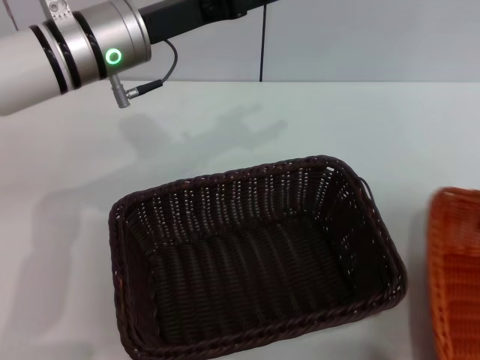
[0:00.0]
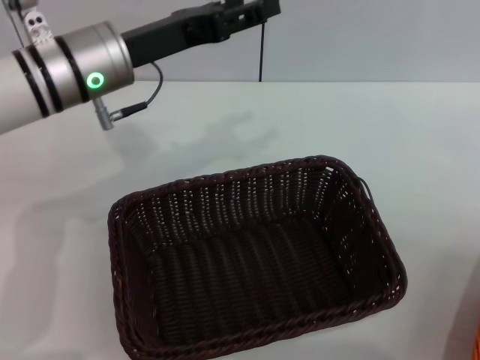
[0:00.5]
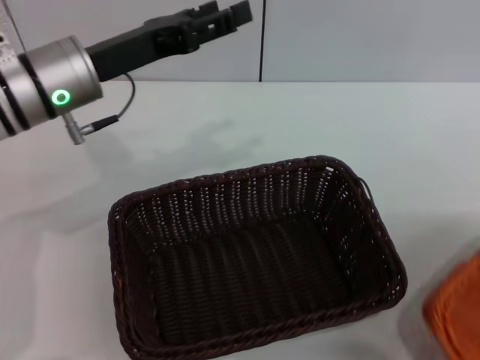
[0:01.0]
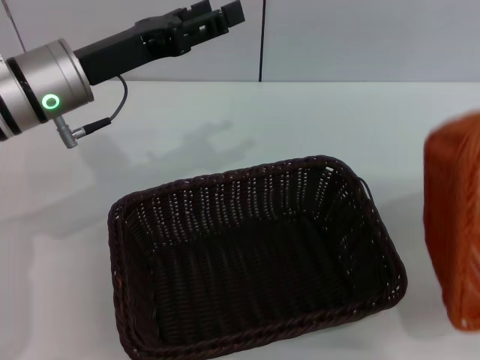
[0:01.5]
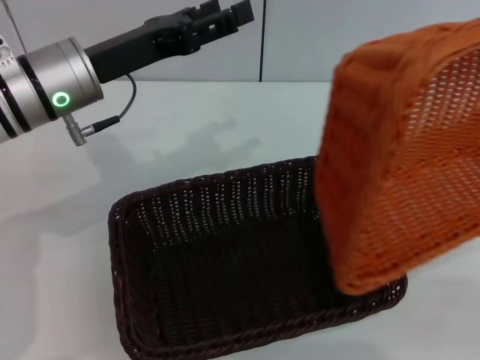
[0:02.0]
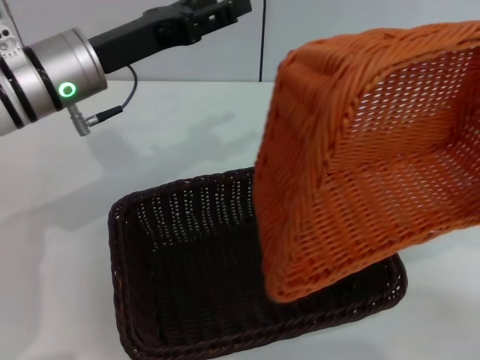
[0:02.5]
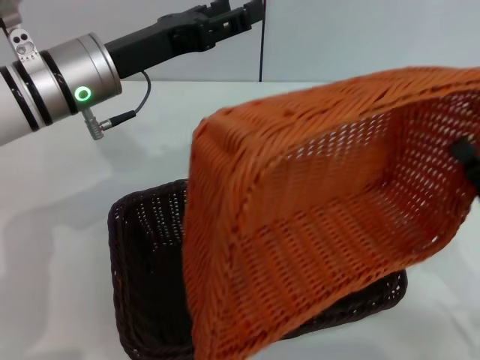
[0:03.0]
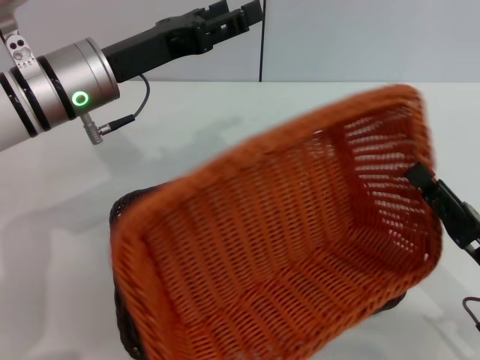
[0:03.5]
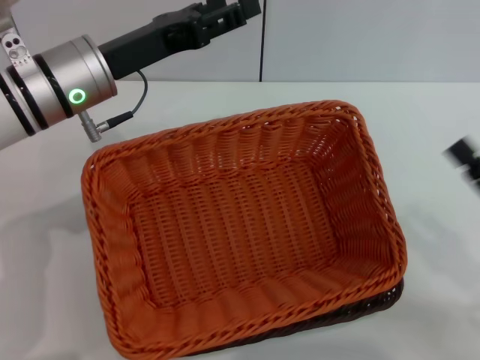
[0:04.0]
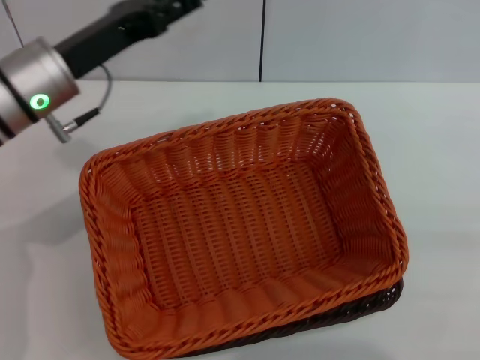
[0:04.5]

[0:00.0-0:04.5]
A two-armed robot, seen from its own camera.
Step, 0:00.5 to 0:03.5: Place the light basket on the dark basket with the right gripper.
0:00.0 to 0:02.0: The left gripper changes place by about 5 cm; the right gripper goes roughly 15 cm backward and downward.
0:02.0 to 0:04.5: The right gripper reaches roughly 10 cm to the left, then returns, and opens its fingers.
